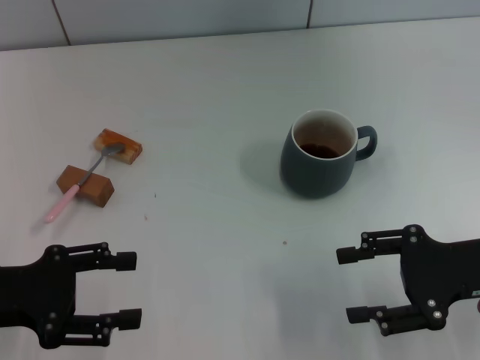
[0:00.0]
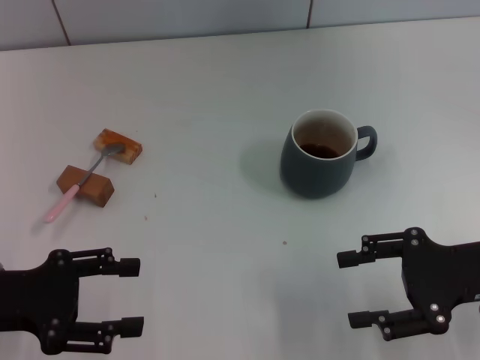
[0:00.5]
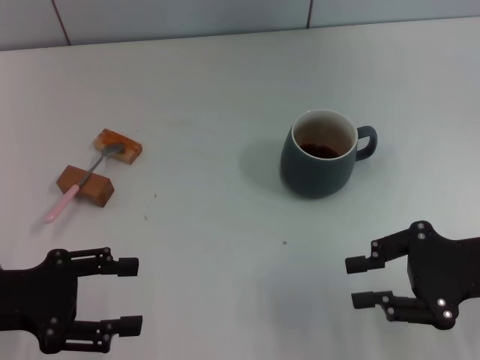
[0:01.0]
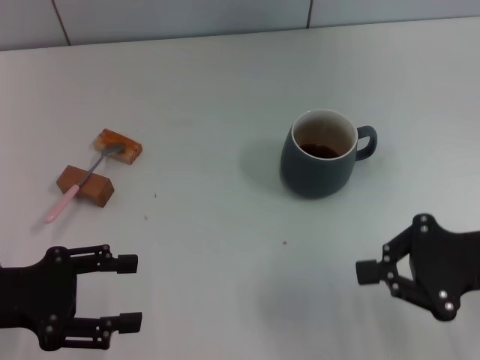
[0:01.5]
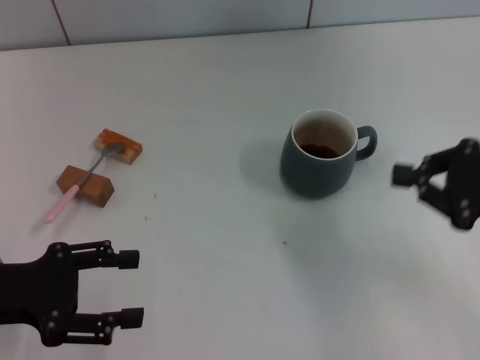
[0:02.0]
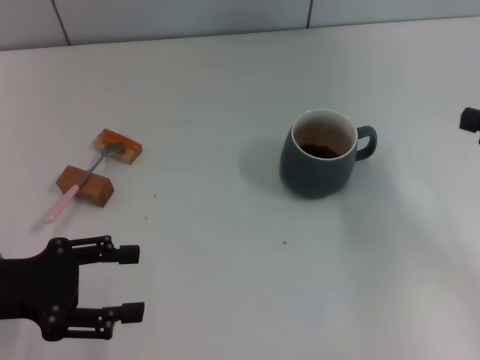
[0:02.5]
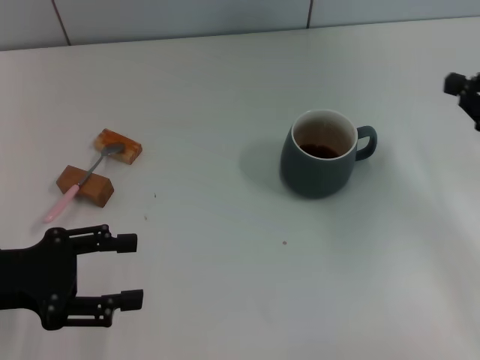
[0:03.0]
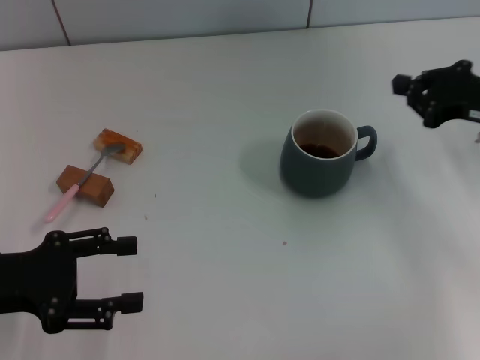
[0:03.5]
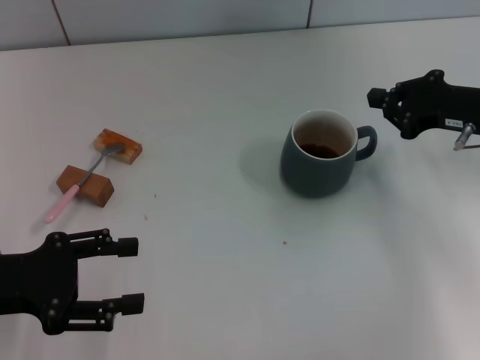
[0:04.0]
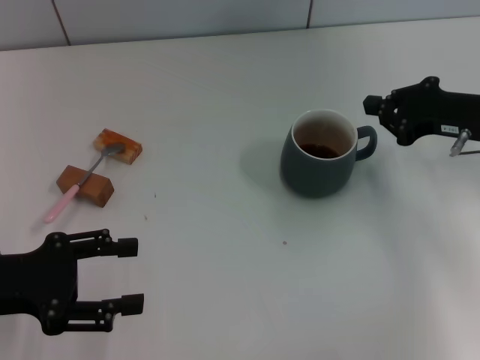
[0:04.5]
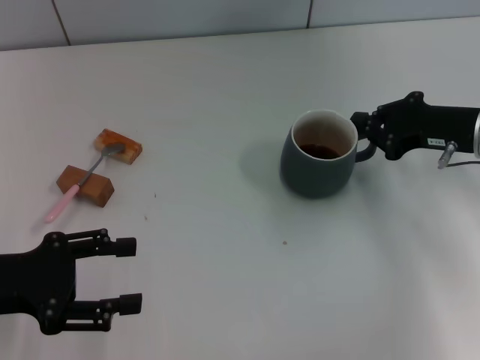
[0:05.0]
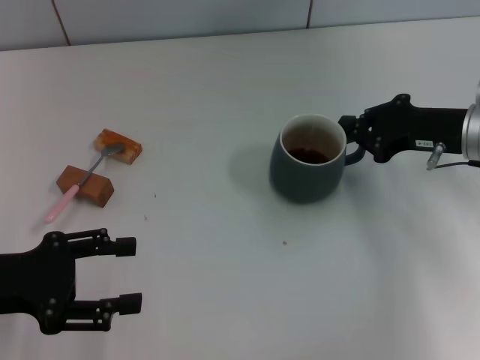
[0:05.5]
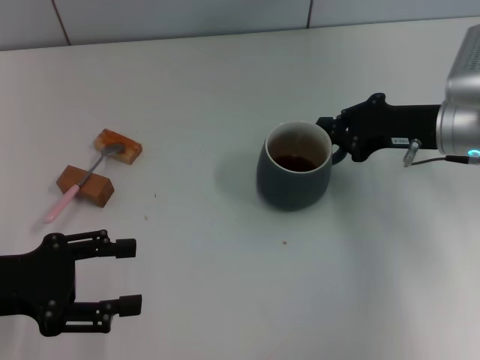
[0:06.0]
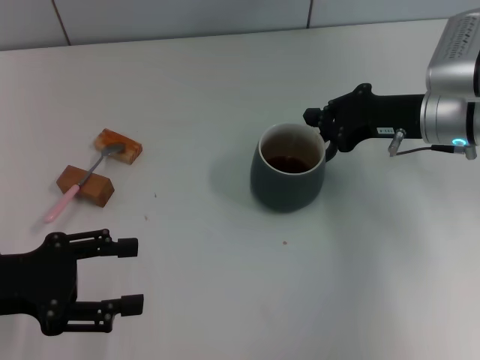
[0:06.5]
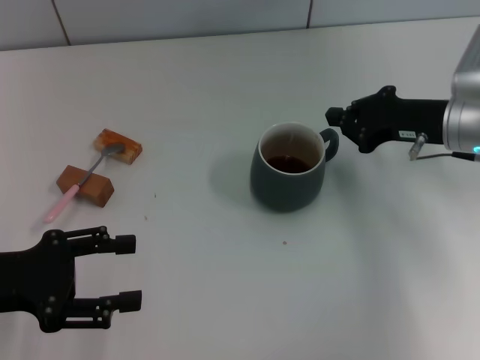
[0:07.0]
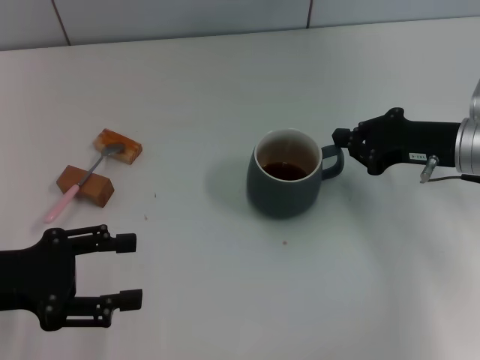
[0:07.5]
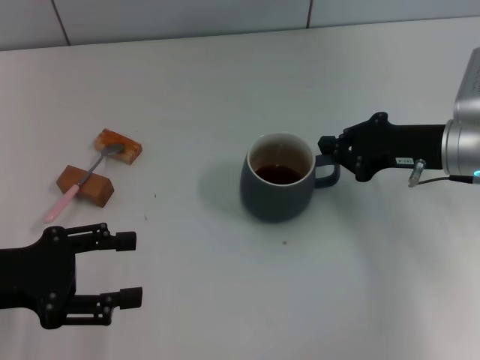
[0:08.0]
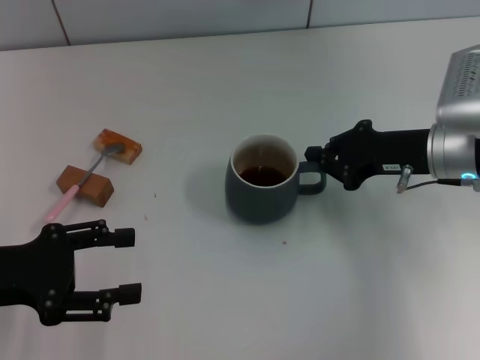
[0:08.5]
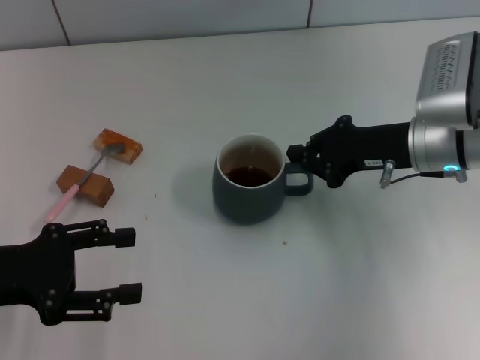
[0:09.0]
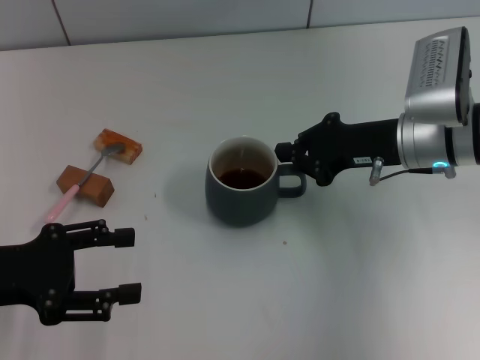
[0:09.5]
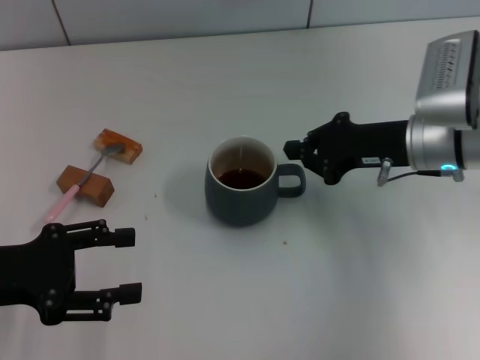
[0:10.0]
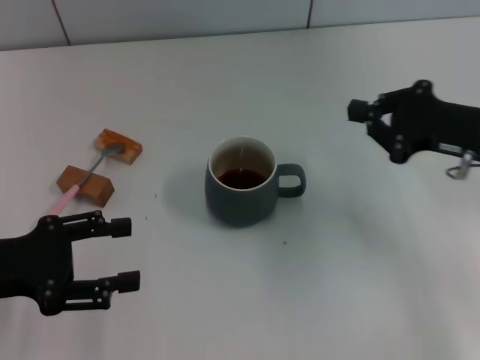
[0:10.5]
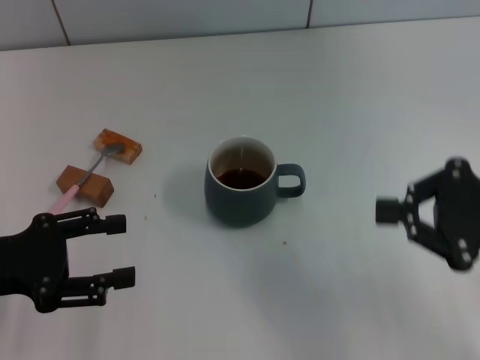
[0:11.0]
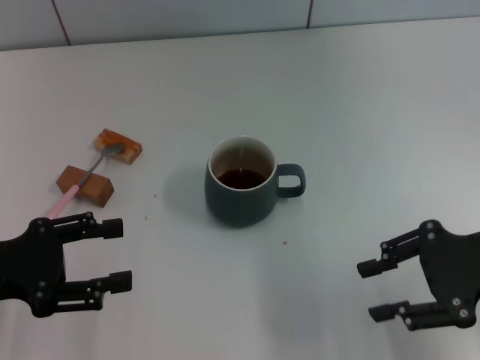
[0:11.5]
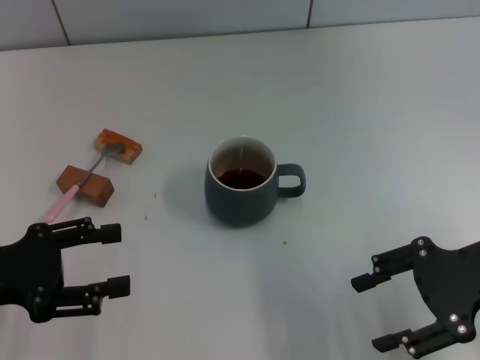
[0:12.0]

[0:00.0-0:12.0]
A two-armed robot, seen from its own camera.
Task of the whole recording: Move the grey cup to the center, lift the pink spoon, stir it three times in the cup, and put the spoon into the cup.
Step, 0:00.0 to 0:10.0: Move the cup with coffee to the center of view with the right gripper.
0:00.0 to 0:02.0: The right gripper ends up approximately 5 cm from where it was, and closes.
0:02.0 to 0:04.0: The right gripper moves forward, about 10 cm.
0:04.0 to 0:06.0: The right gripper moves approximately 5 cm.
0:06.0 to 0:10.0: The grippers move only a little.
0:10.0 to 0:12.0: The right gripper heads backward and to the right, covering roughly 10 cm, and opens up.

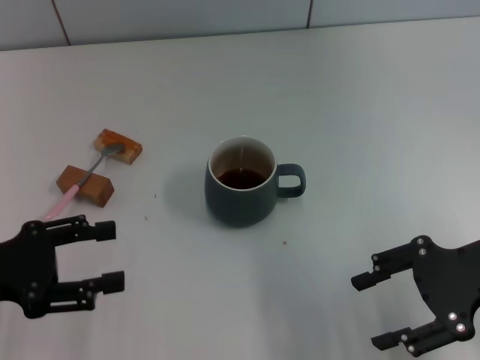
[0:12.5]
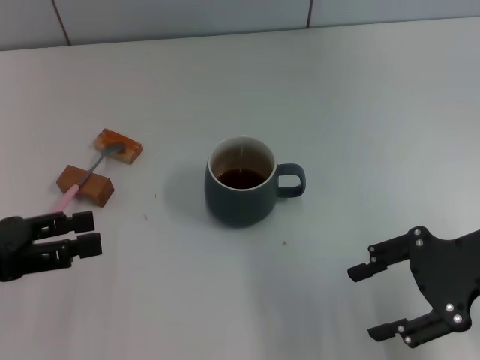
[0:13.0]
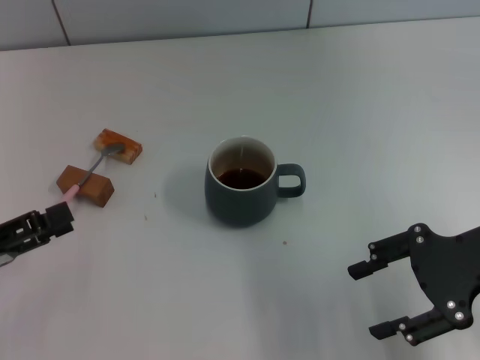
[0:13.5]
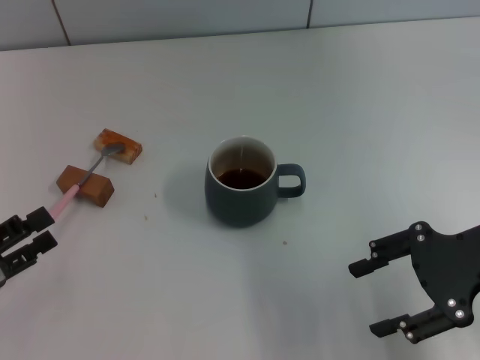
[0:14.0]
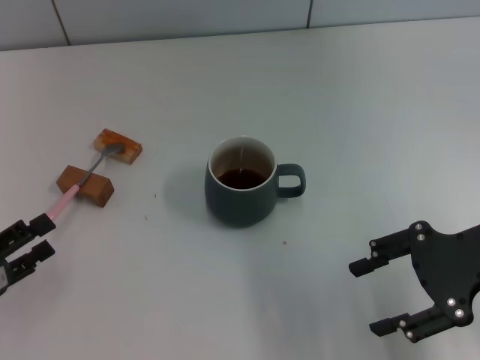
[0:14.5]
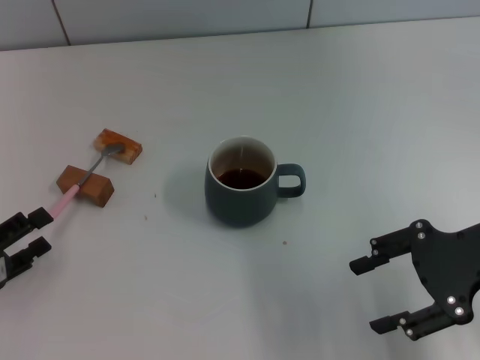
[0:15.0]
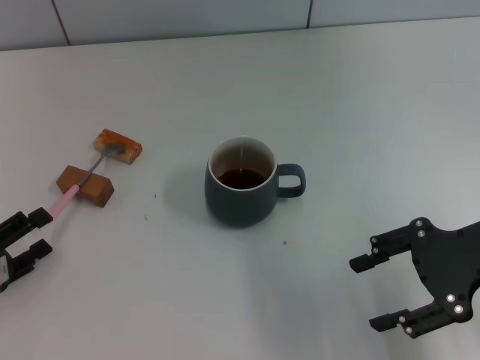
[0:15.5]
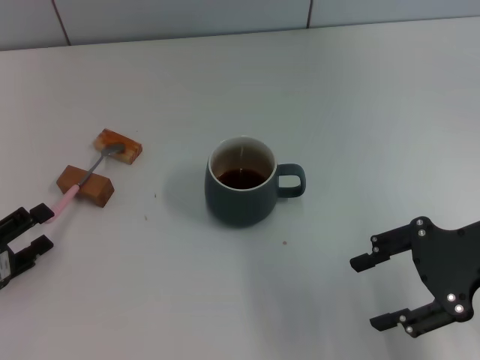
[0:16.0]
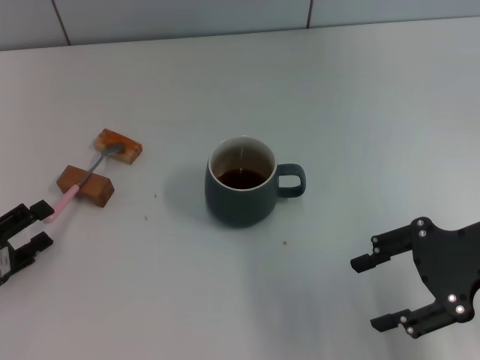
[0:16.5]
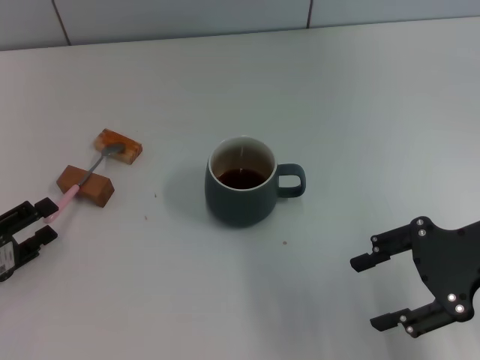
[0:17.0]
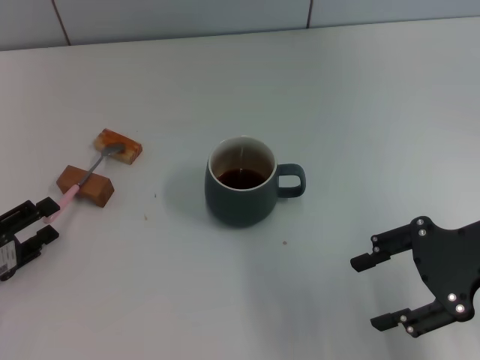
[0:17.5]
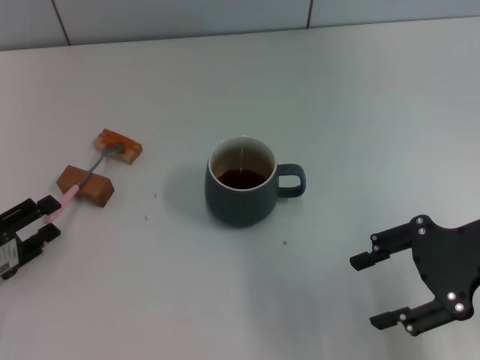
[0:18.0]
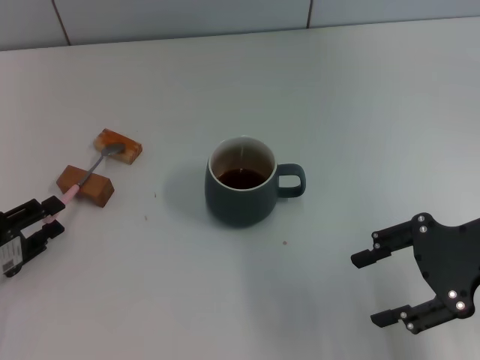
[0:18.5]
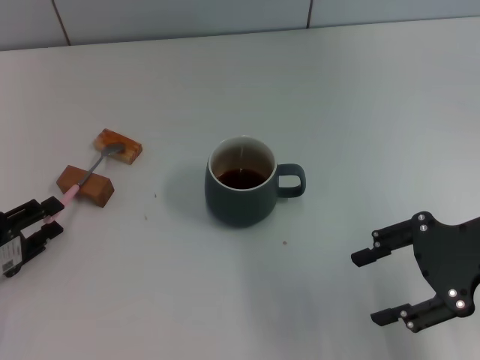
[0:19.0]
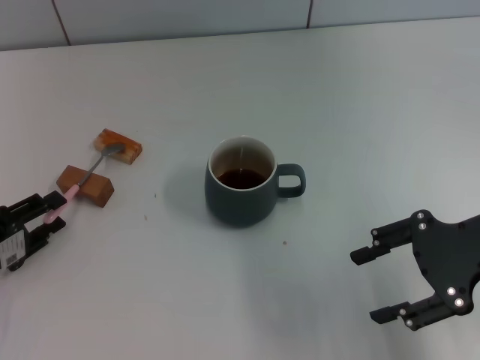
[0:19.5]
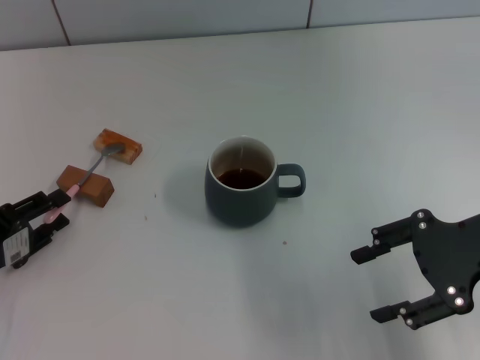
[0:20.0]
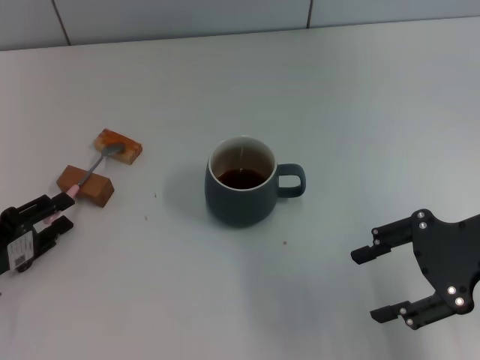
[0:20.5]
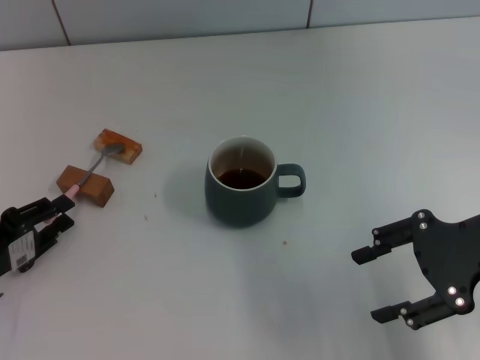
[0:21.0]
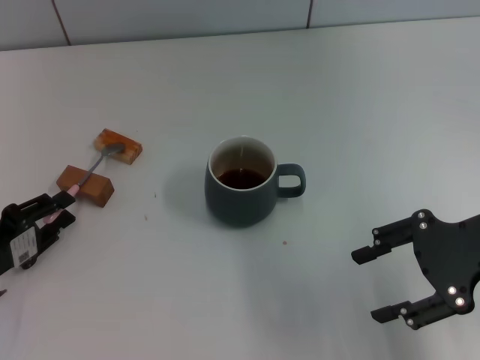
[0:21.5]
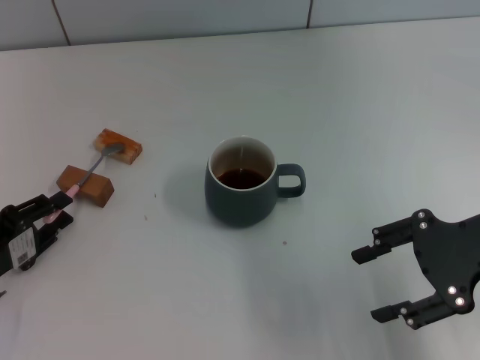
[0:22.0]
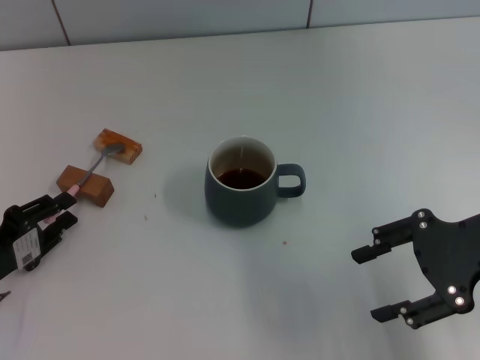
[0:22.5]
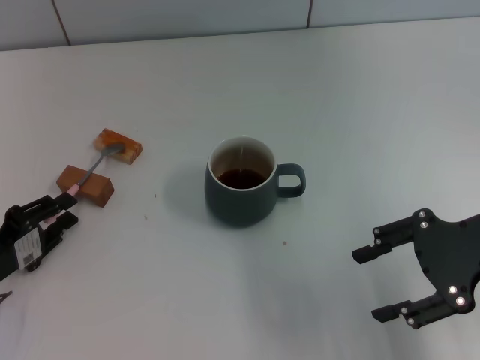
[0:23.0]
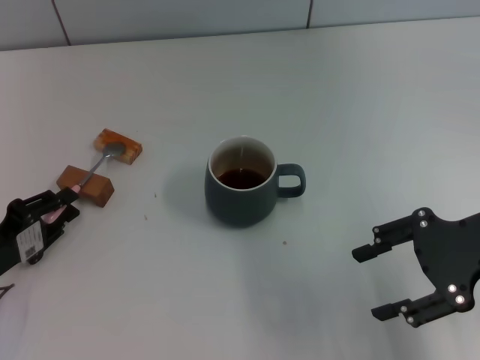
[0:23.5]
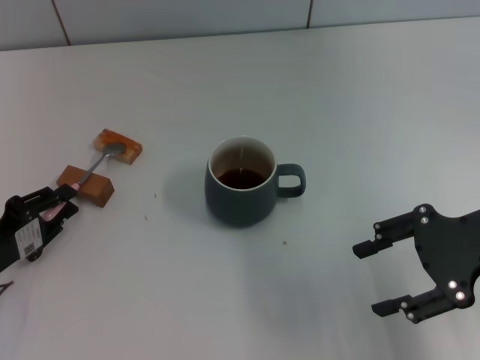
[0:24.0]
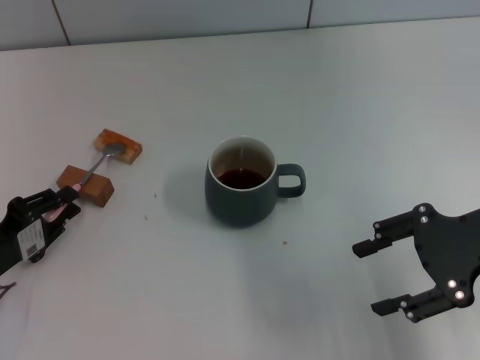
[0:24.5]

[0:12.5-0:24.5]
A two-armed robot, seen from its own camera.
Task of the whole recording: Move the grey cup to the center, lift the pink spoon, stir it three times in the cup, and put the spoon into the cup.
0:12.5 to 0:14.5: The left gripper travels downward by roughly 5 cm.
0:14.5 to 0:18.5: The grippers move only a little.
0:18.5 to 0:20.5: The two grippers keep their place.
0:20.5 to 0:22.5: The two grippers keep their place.
0:22.5 to 0:24.5: Neither gripper changes place.

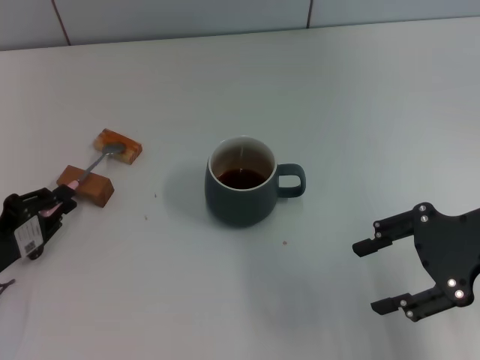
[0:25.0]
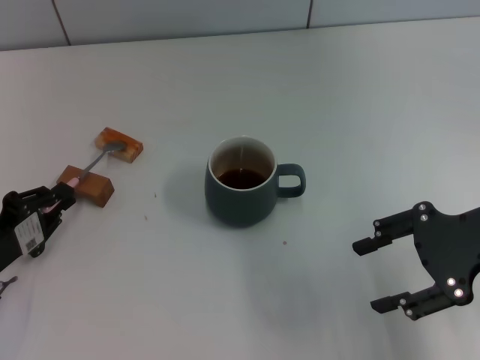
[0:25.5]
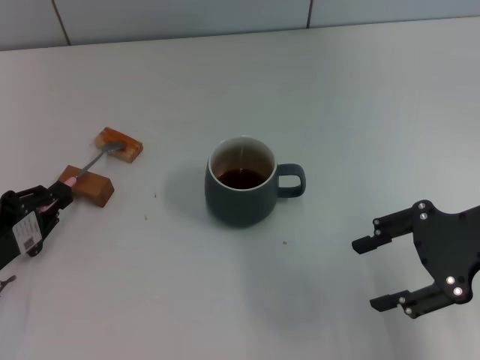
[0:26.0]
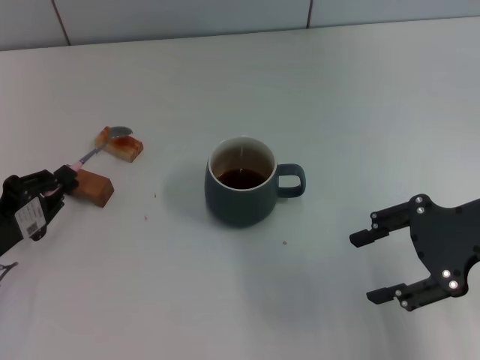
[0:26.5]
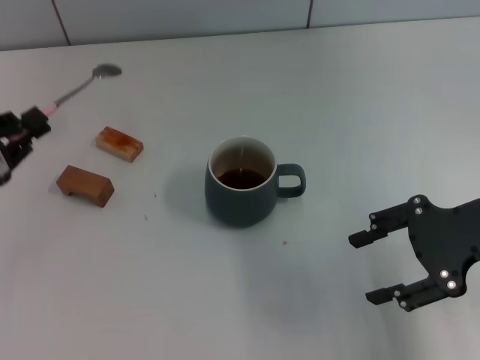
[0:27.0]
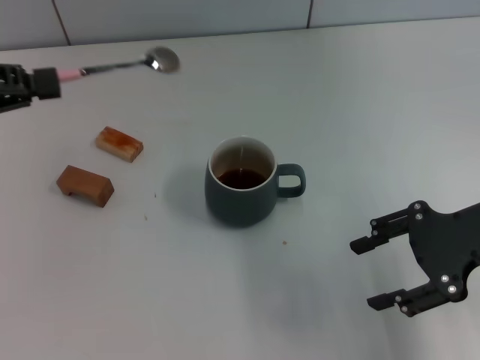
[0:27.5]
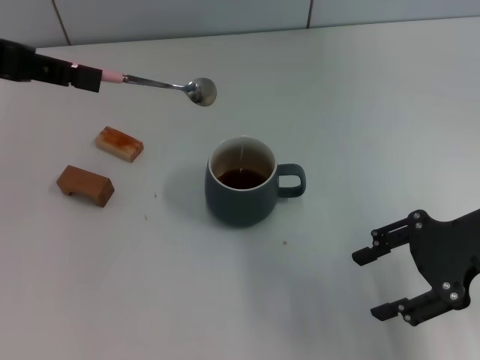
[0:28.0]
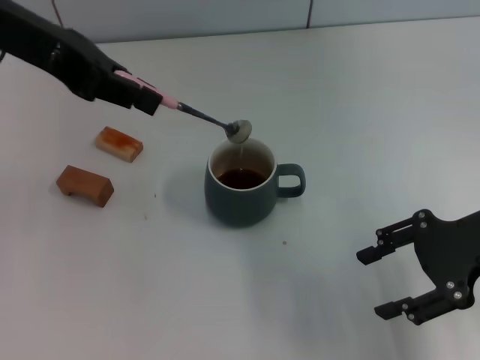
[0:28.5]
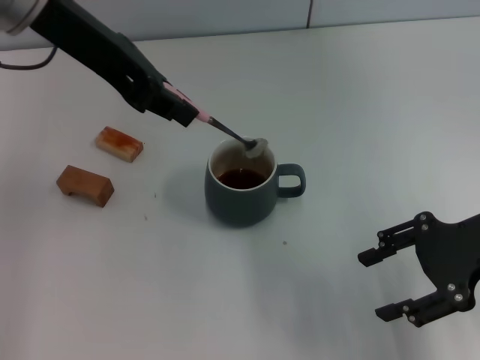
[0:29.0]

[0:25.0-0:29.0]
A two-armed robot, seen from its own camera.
Task of the whole recording: Move the grey cup to the center, lift the pink spoon, stir it three times in the cup, and put the spoon into the cup.
Step, 0:25.0 to 0:27.0: Pick up the spoon with the left gripper.
0:25.0 to 0:27.0: The left gripper moves upward, some 10 cm.
0:27.0 to 0:29.0: The left gripper heads upward, to the right and forward, covering roughly 30 cm.
